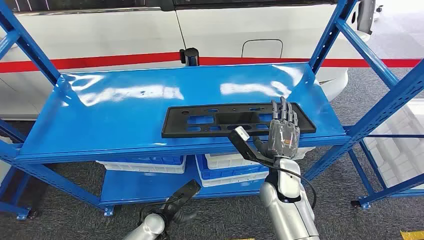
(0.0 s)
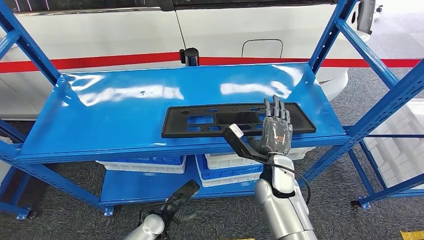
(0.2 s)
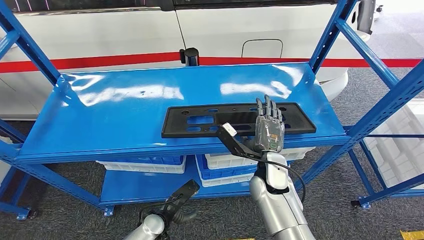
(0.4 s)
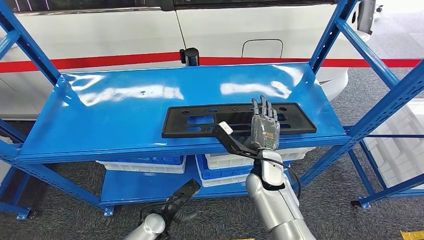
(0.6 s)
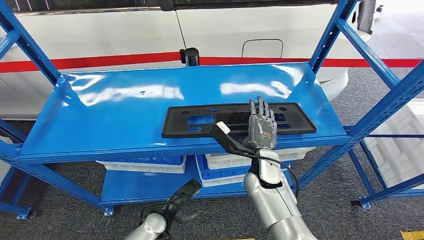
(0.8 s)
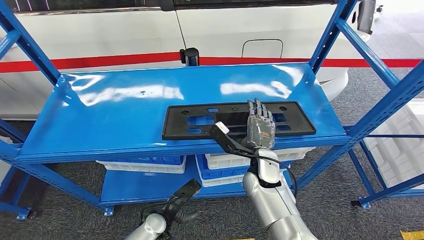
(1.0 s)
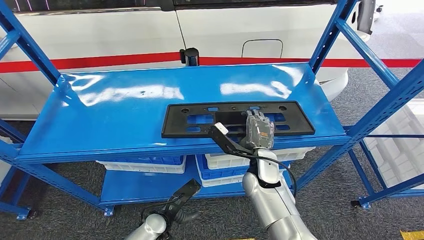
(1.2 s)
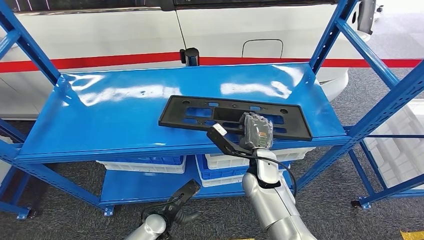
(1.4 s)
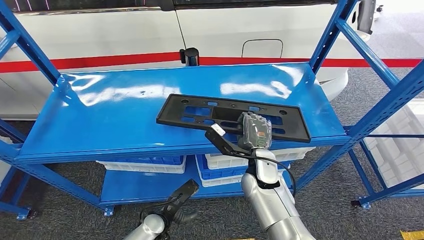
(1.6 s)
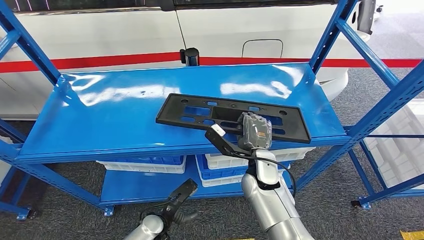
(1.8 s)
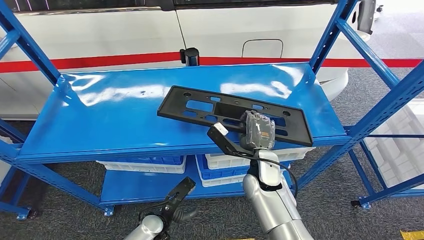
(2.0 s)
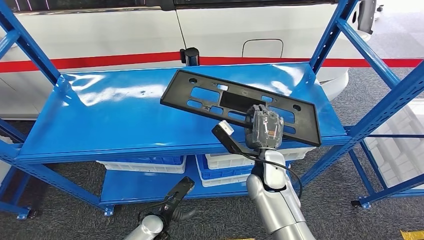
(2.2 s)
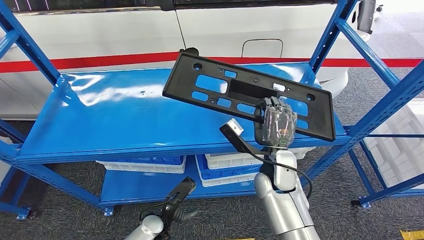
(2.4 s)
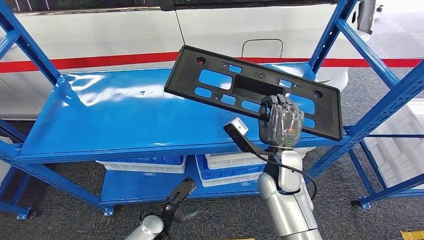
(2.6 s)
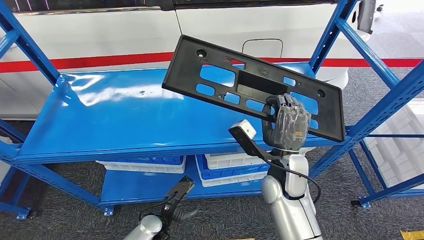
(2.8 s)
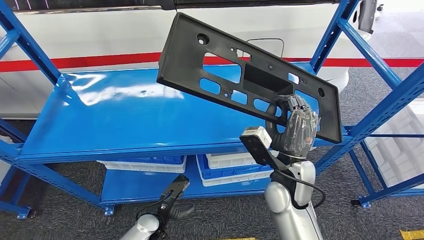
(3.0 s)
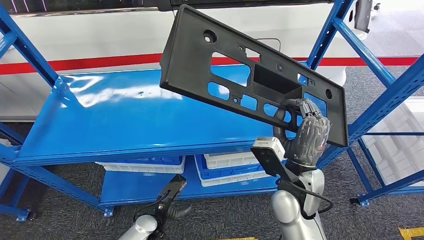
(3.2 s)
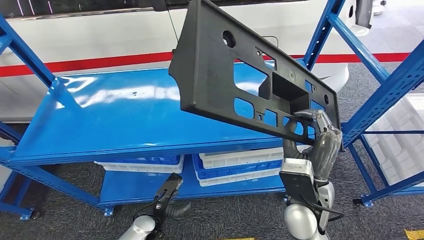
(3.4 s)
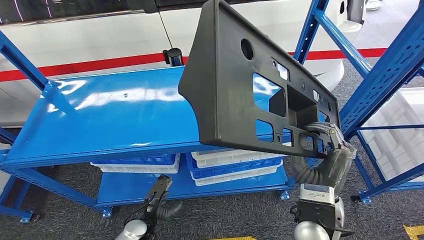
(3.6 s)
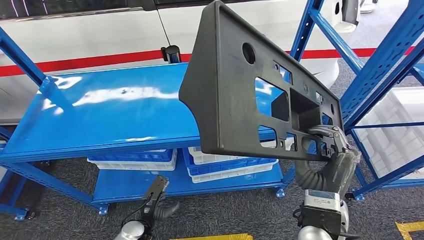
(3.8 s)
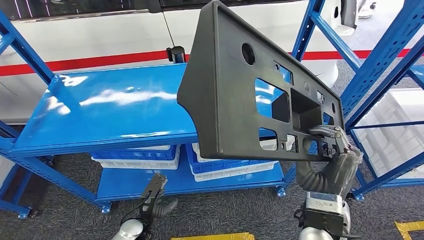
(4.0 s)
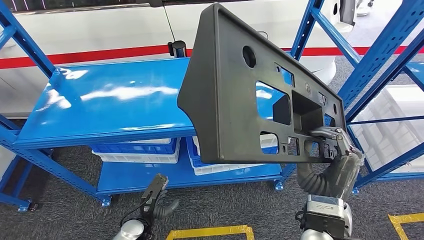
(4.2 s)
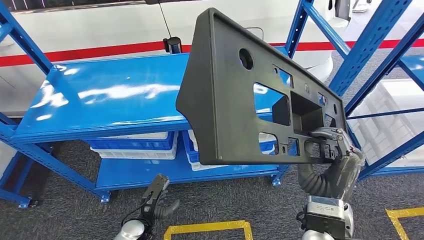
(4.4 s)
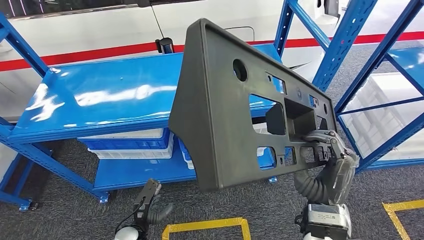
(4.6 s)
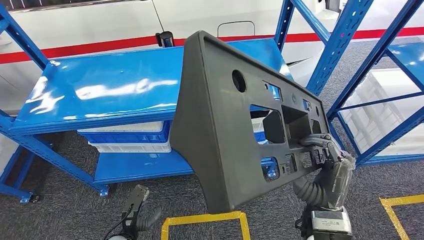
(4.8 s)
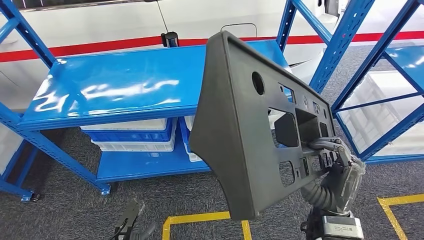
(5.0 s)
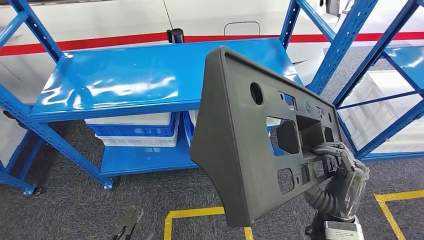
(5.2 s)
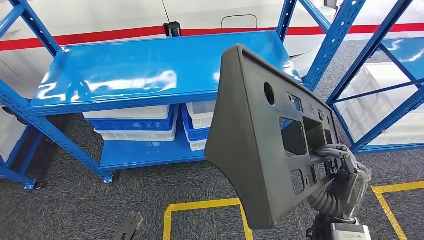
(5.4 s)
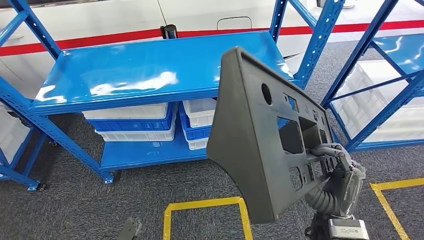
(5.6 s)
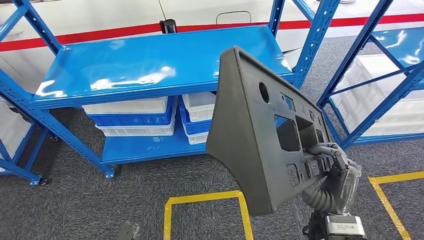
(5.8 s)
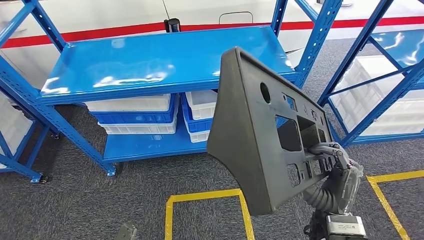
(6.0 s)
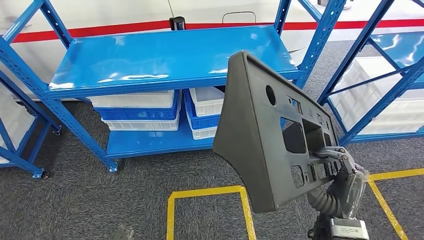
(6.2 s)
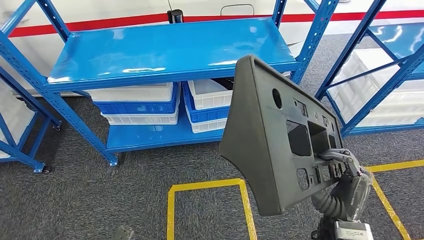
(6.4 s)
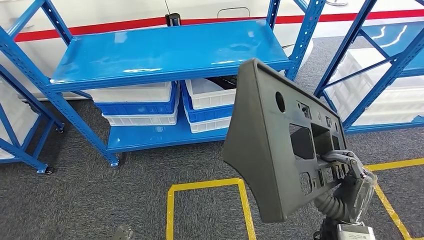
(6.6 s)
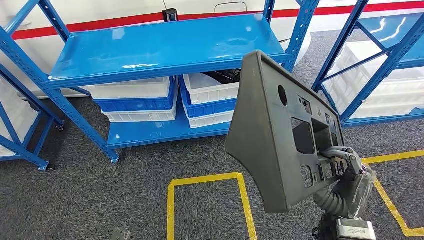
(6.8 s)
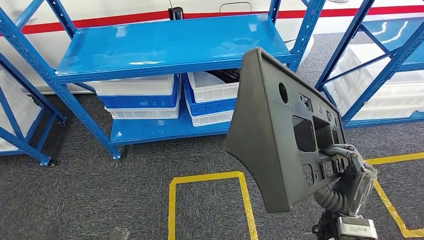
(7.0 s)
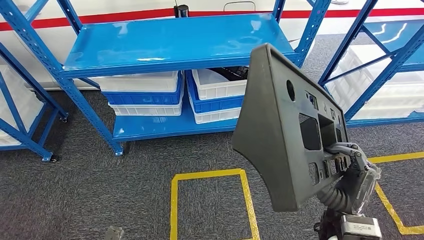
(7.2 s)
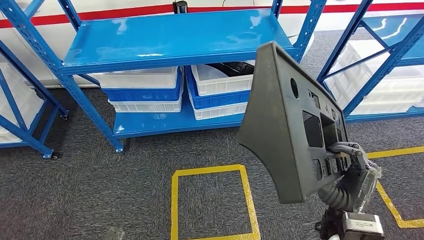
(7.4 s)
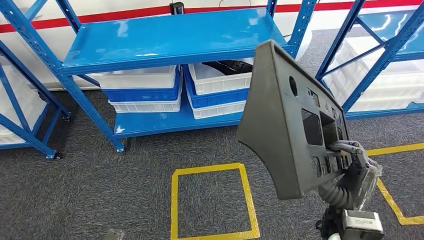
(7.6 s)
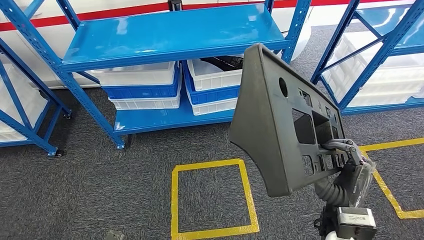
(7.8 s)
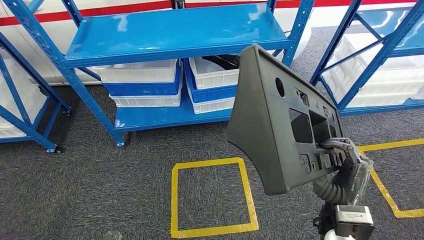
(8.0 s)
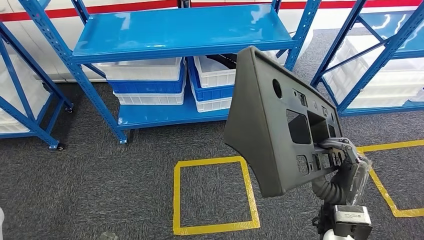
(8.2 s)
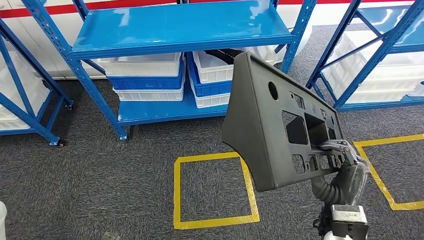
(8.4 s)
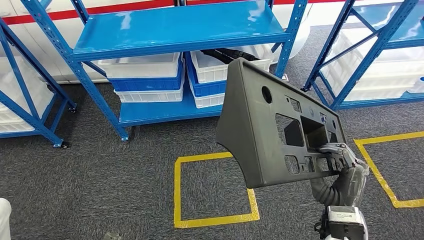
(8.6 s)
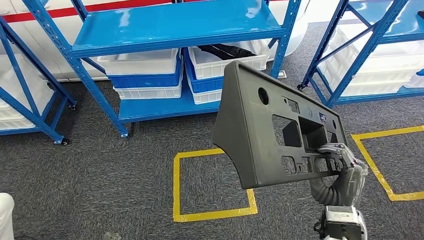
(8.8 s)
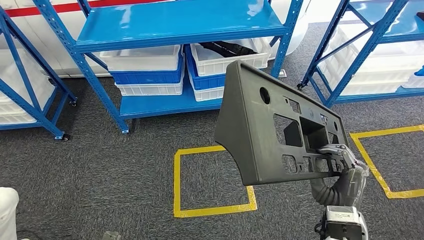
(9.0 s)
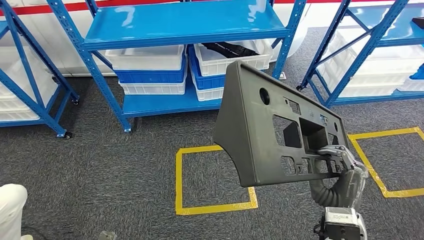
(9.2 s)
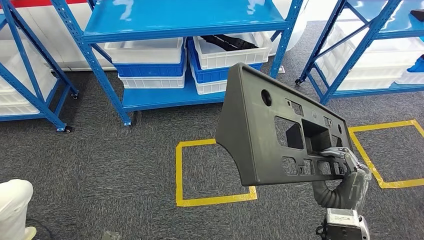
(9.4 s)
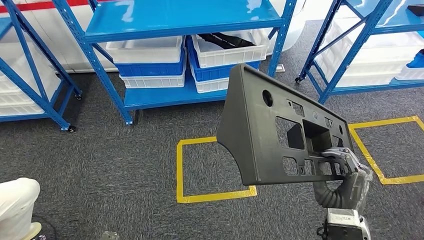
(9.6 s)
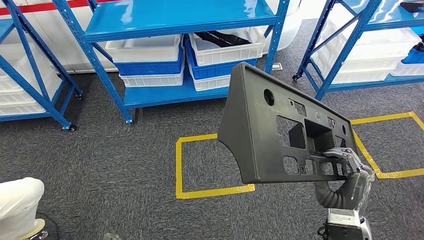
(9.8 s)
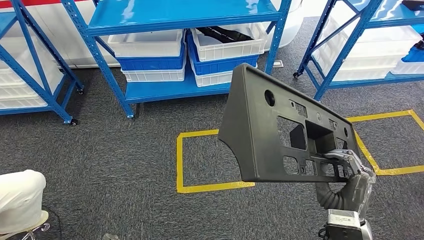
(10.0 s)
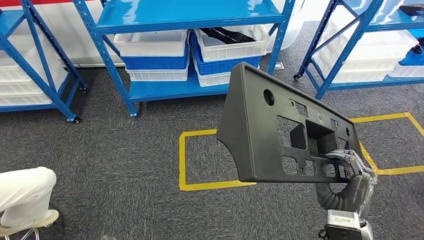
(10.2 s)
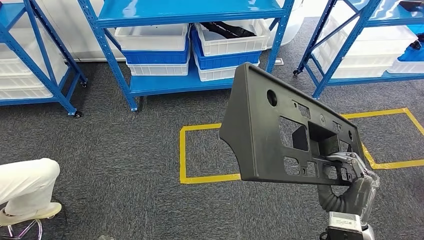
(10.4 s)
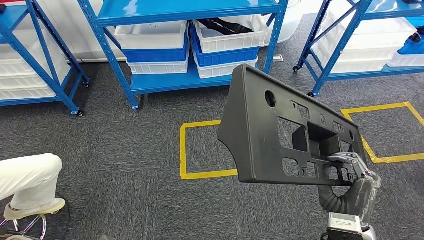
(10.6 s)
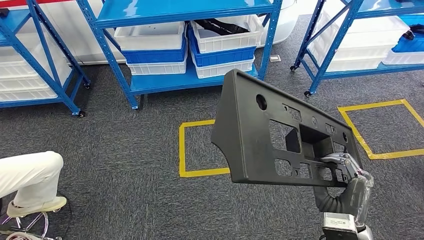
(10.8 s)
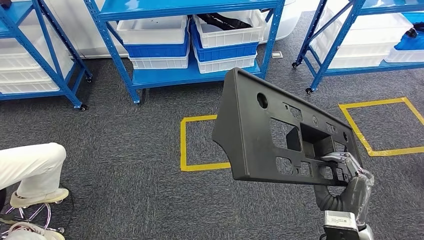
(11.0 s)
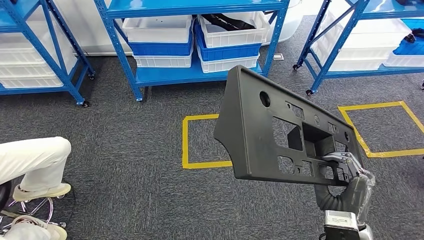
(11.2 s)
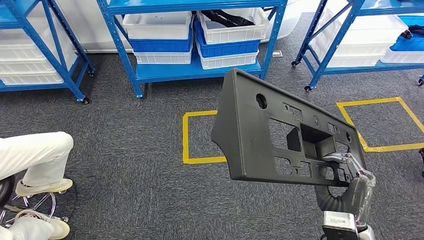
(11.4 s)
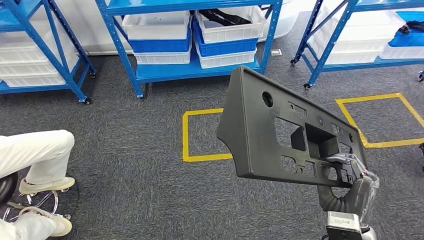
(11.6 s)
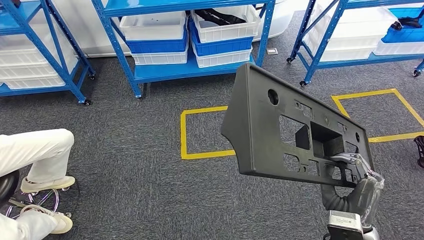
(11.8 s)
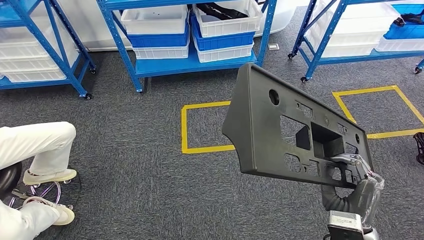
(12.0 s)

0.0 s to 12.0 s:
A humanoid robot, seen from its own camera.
Step, 0.0 to 5.6 s: Pick up the large material from the shelf.

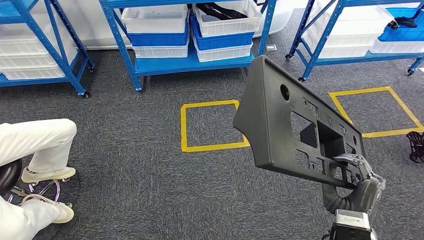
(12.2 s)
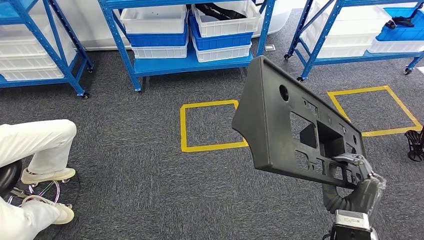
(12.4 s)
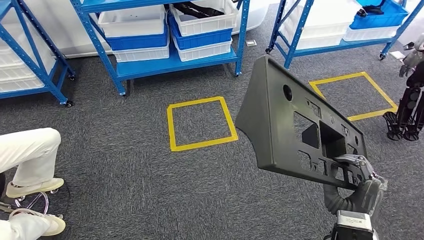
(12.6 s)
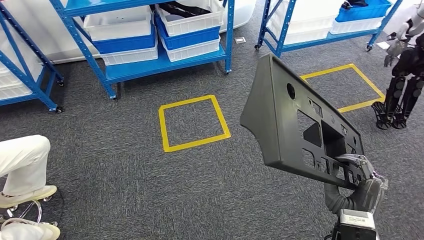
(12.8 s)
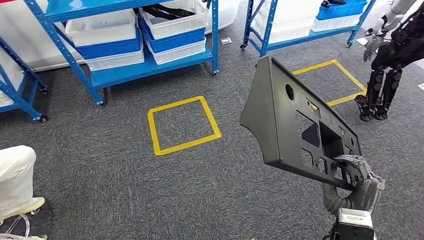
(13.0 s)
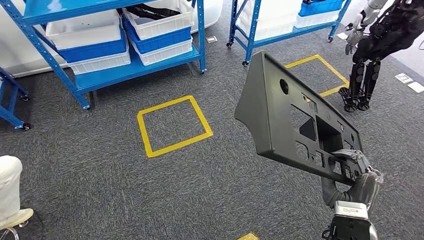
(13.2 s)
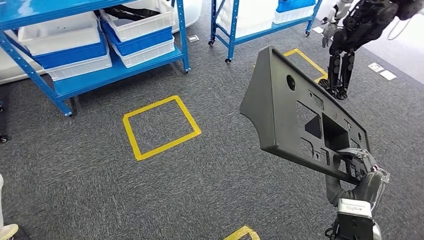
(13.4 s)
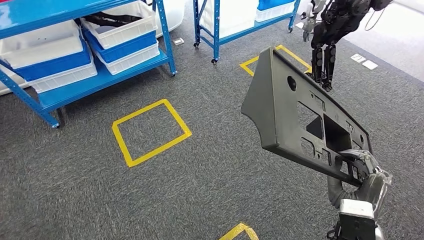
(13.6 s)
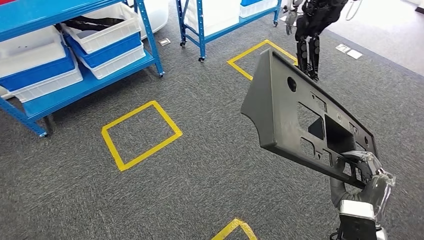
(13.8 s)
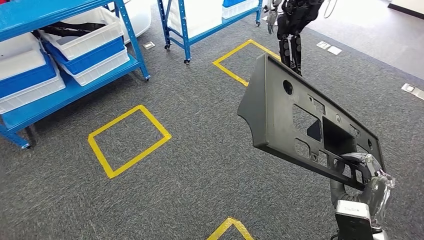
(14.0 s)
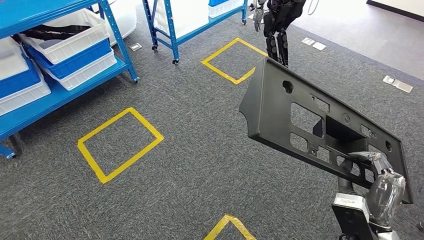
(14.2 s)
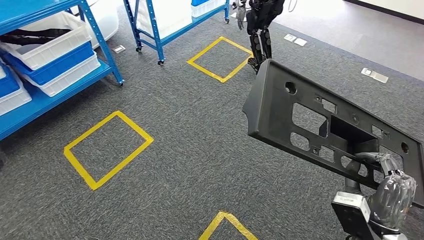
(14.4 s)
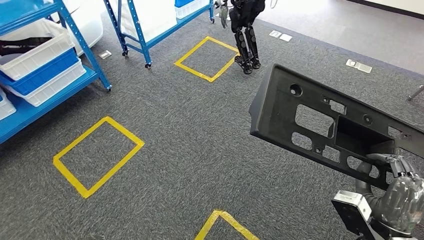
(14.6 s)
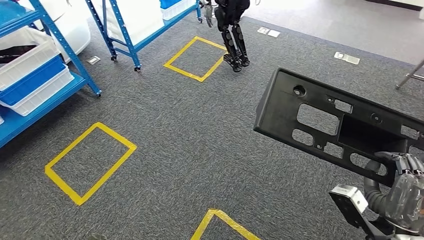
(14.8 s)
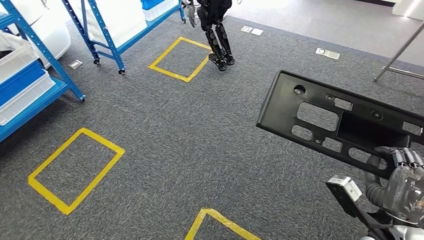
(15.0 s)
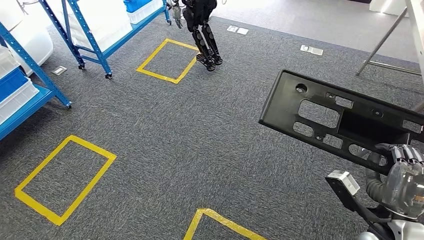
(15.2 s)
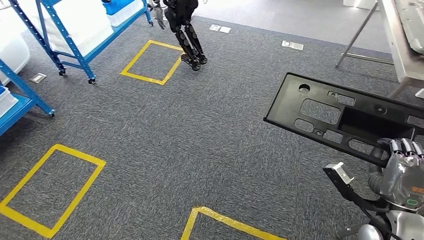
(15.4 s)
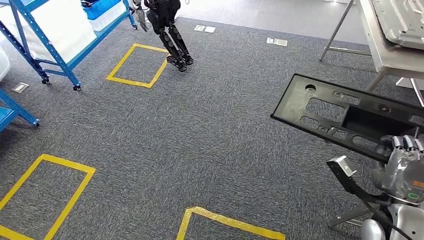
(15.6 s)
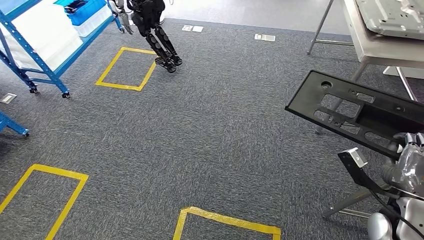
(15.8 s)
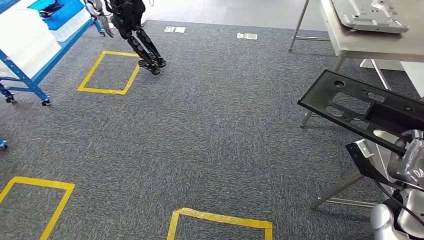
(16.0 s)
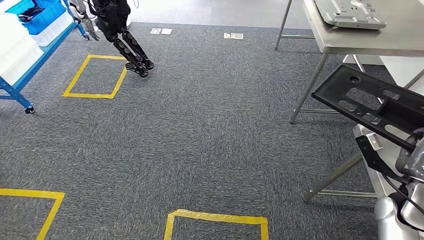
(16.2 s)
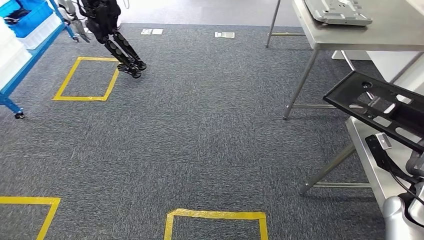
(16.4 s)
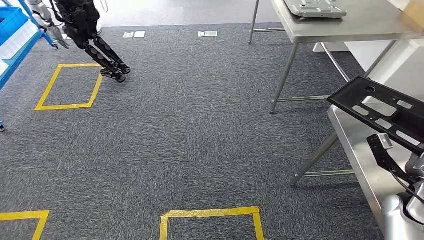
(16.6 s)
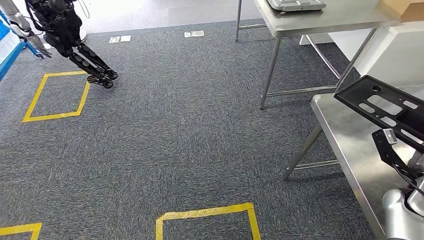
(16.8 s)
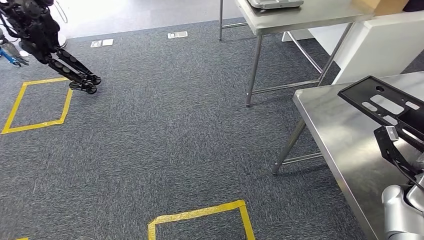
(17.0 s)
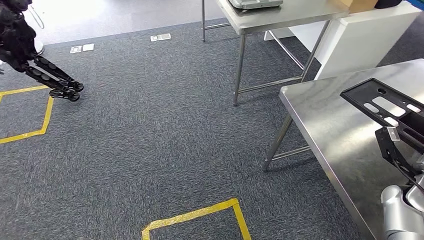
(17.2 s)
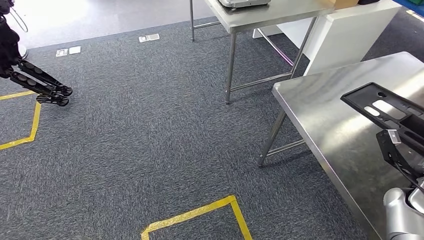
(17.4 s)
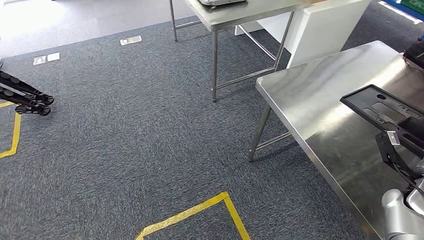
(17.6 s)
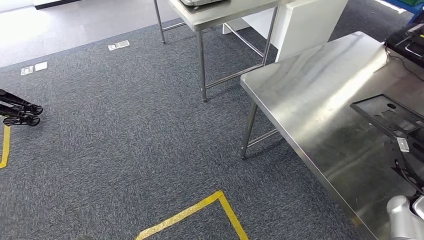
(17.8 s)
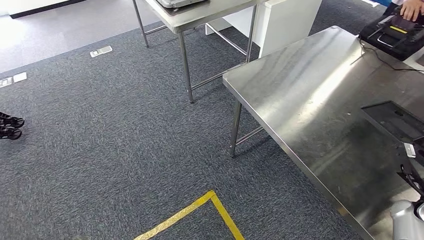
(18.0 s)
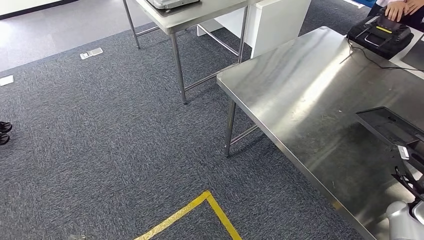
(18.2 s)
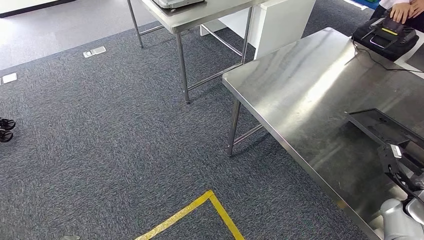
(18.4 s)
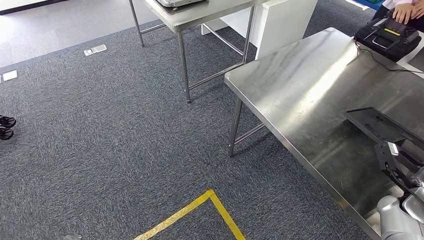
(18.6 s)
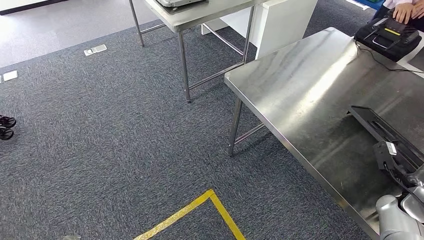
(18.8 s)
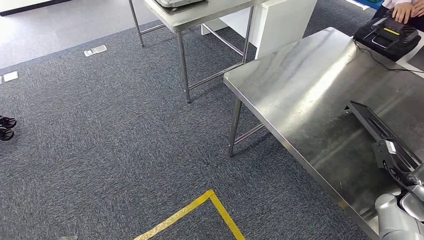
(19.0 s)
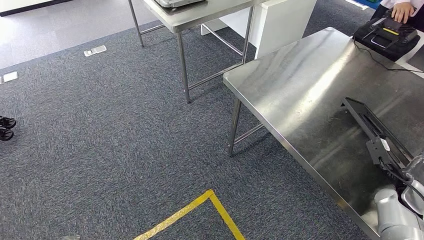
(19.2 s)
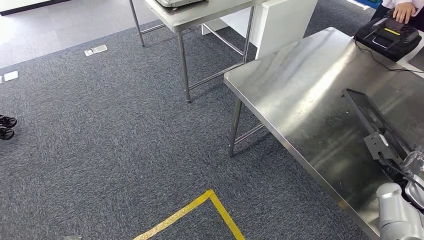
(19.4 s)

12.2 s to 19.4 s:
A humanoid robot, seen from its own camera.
Step, 12.2 to 17.6 s: Move the large material to the workbench.
